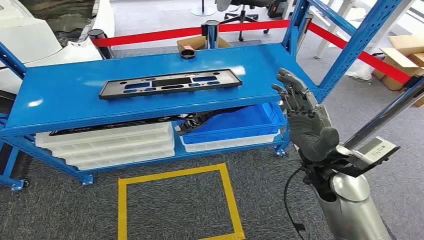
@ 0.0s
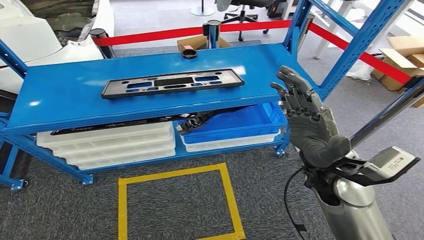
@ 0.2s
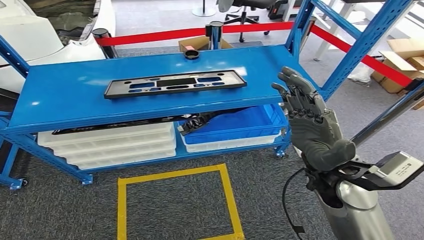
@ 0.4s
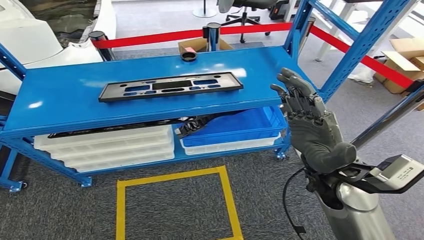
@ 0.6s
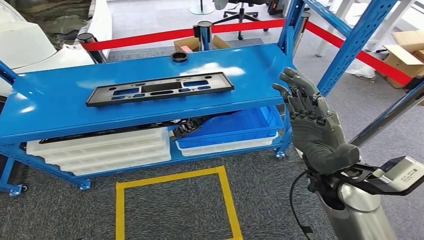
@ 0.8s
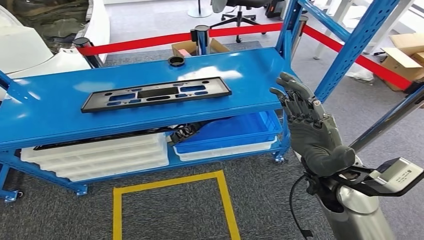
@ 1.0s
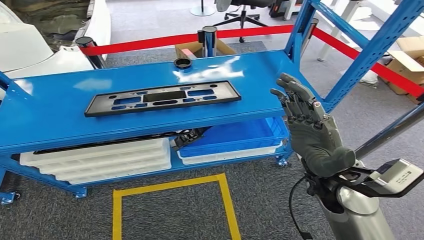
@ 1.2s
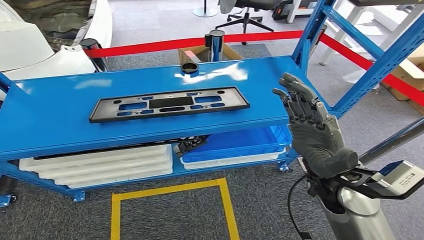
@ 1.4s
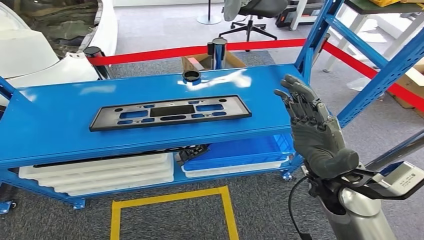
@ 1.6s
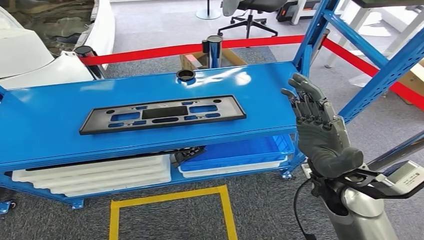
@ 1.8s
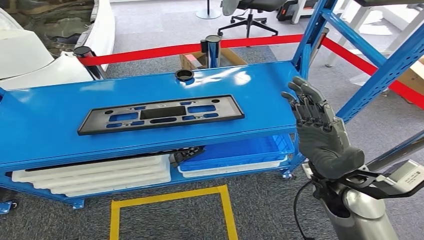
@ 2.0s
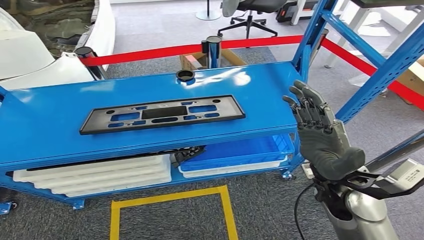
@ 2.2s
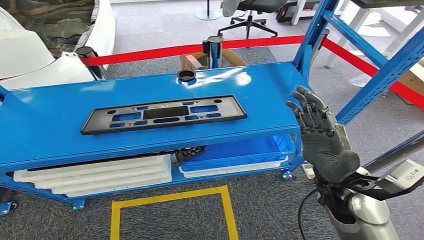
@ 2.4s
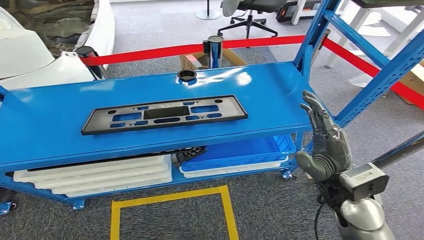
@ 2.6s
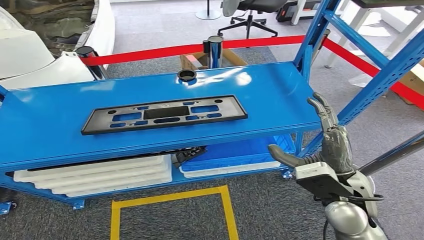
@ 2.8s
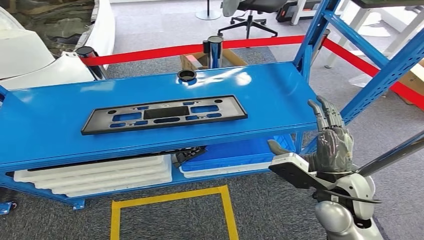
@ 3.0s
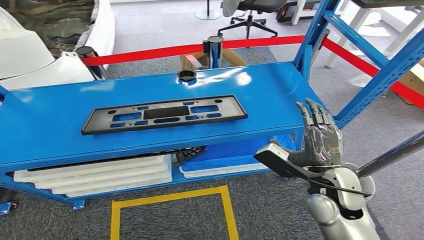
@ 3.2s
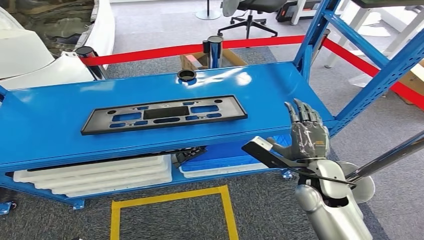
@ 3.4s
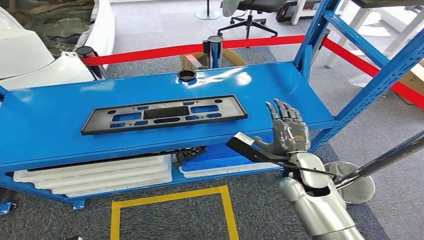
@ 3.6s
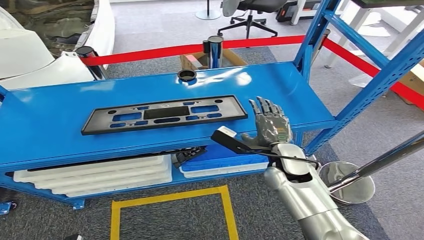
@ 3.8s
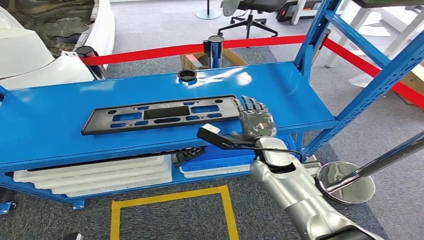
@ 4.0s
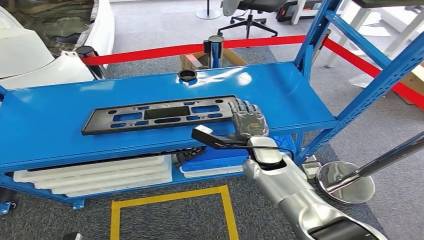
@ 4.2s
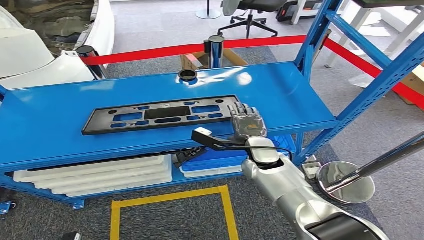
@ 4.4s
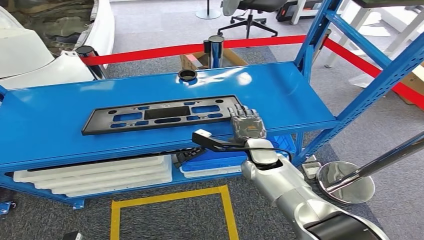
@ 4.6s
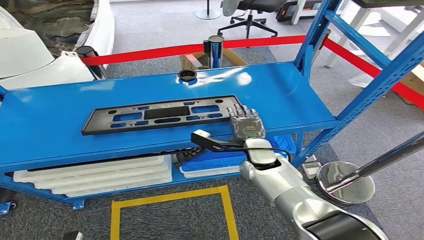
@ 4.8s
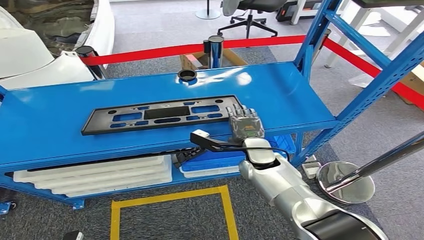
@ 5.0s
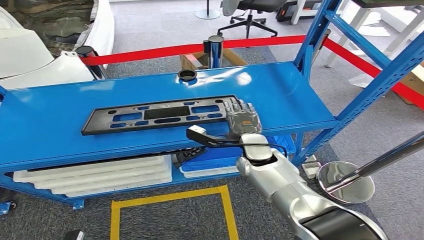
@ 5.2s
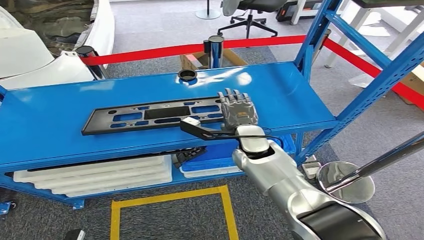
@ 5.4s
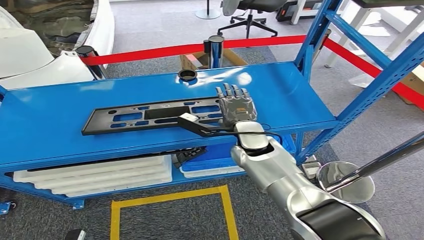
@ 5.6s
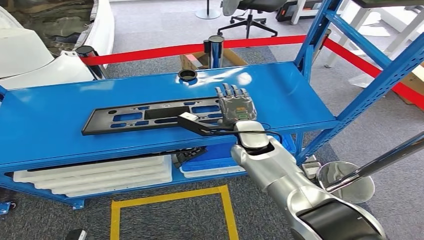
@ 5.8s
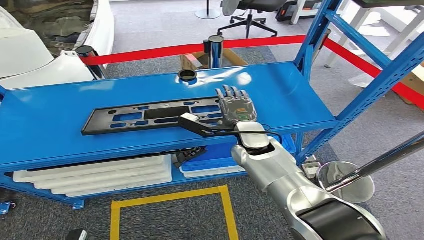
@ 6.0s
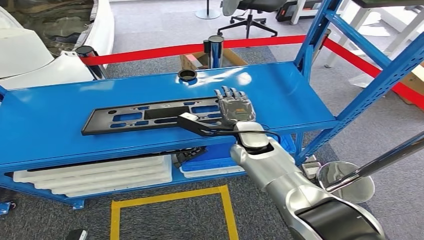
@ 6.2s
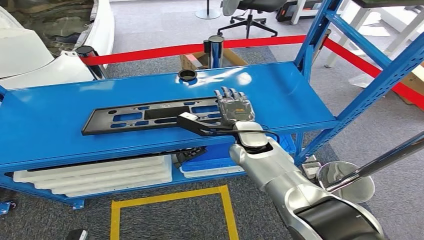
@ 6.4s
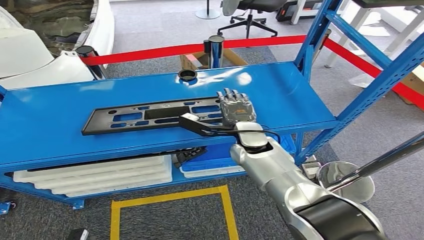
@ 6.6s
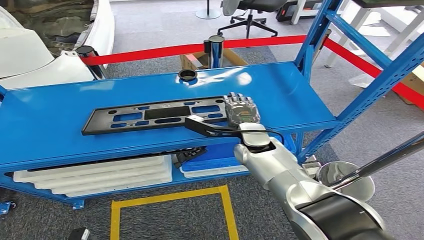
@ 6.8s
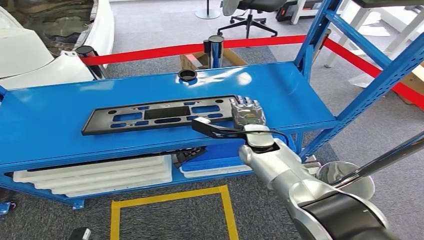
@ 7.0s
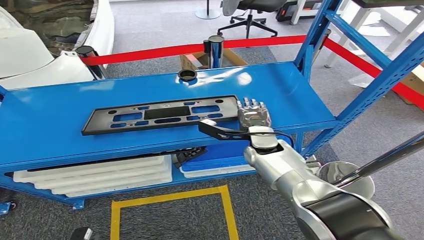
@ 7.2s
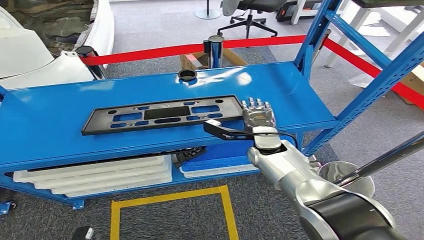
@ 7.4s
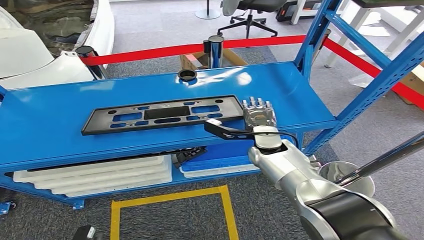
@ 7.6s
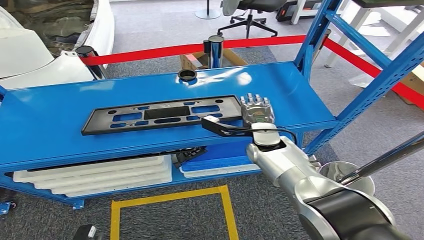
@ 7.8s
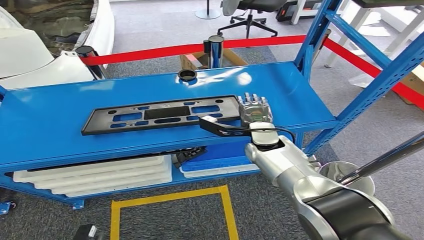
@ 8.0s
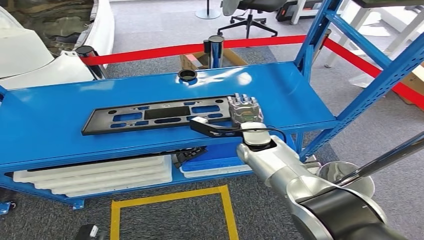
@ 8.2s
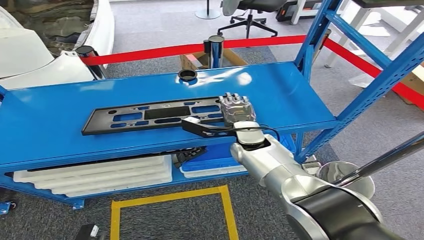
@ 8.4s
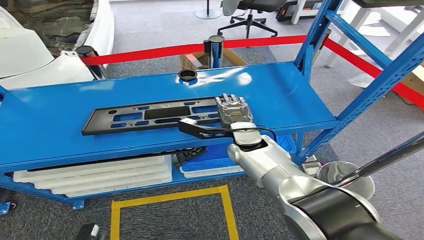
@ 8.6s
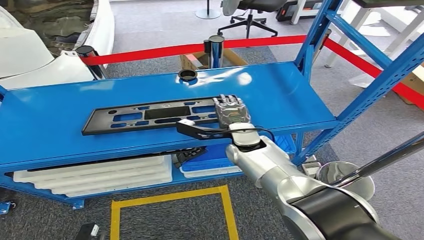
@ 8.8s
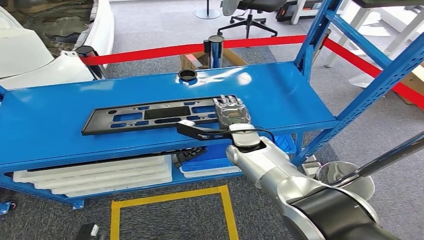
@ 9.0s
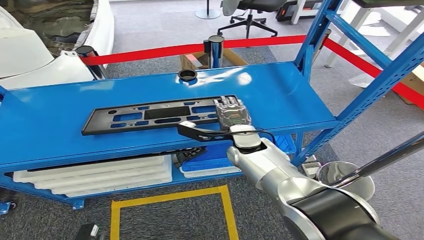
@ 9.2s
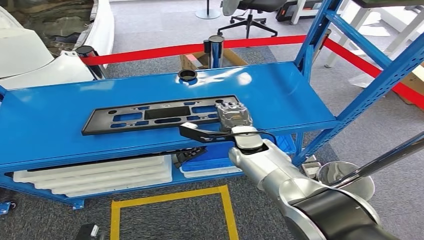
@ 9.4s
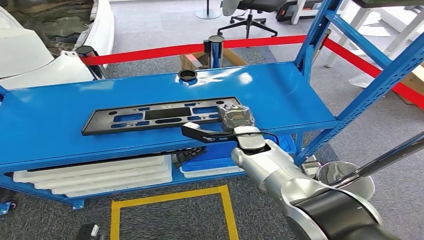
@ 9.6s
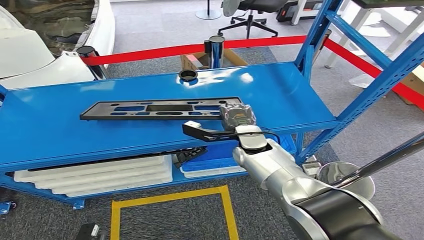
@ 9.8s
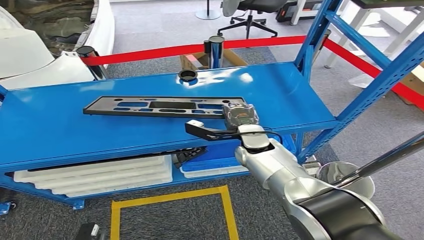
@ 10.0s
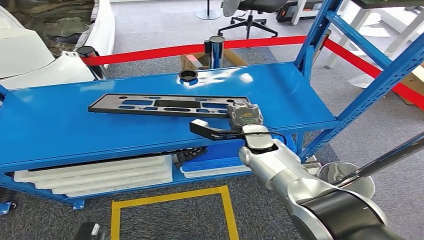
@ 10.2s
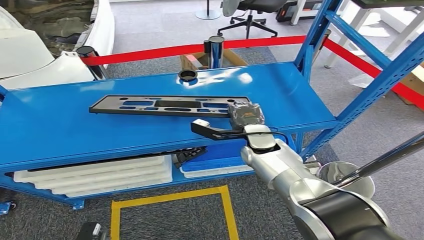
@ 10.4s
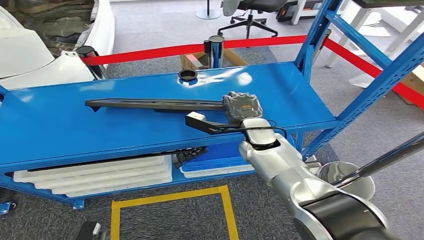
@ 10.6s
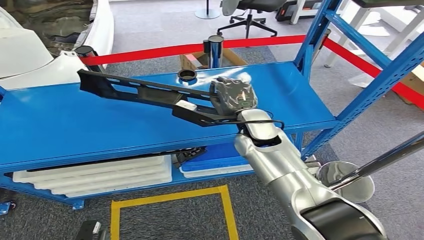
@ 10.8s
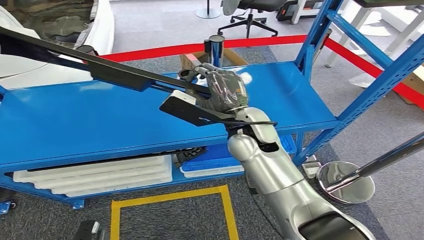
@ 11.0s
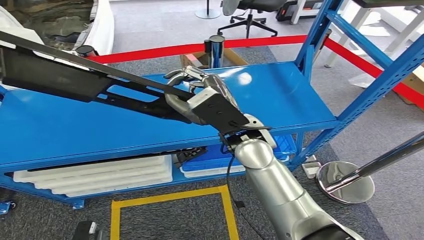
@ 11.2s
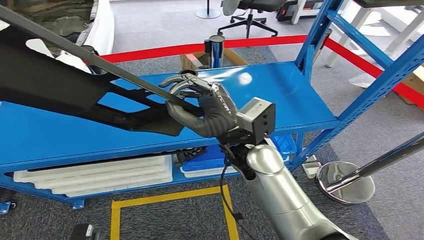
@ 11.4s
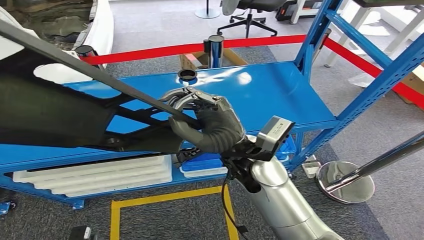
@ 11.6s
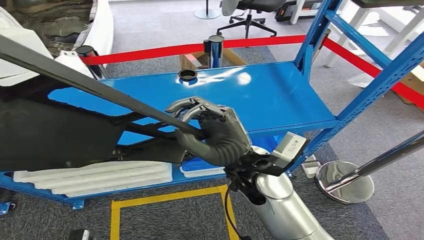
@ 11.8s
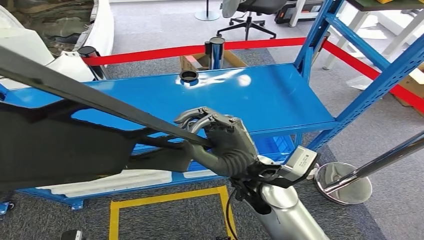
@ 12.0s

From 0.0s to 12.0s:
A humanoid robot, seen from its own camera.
Step, from 0.0s to 11.6s: Pick up the small component from the shelf.
From 3.0s to 4.4s: The right hand travels forward, to the left and downward by approximately 20 cm.
From 4.4s to 6.0s: The right hand moves about 5 cm.
From 6.0s to 7.6s: The right hand moves approximately 5 cm.
From 7.6s to 9.0s: The right hand heads to the left, covering roughly 5 cm.
From 9.0s to 10.4s: The hands move only a little.

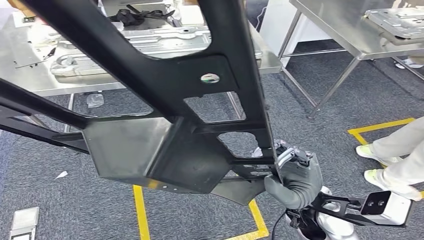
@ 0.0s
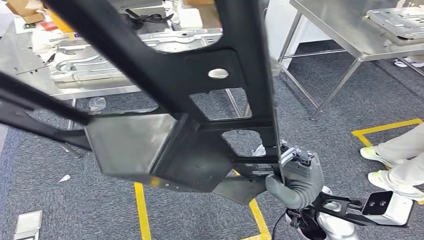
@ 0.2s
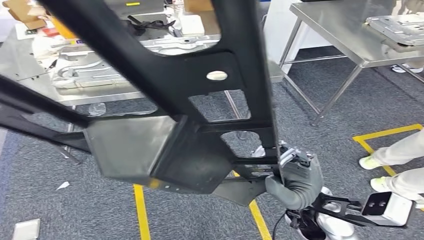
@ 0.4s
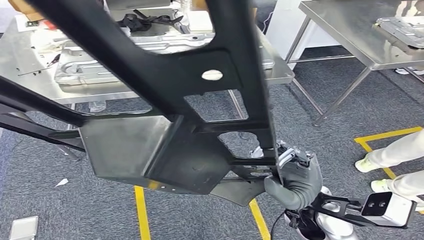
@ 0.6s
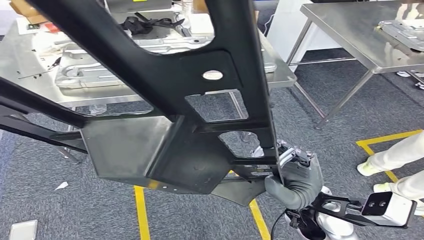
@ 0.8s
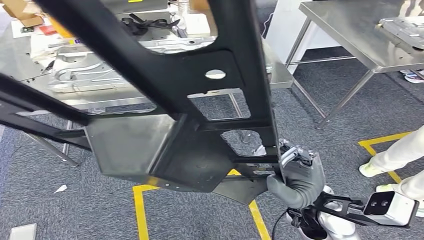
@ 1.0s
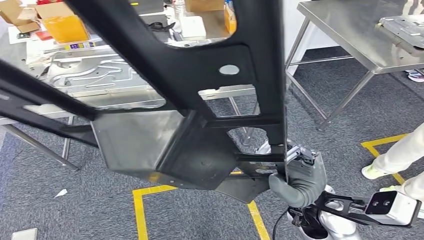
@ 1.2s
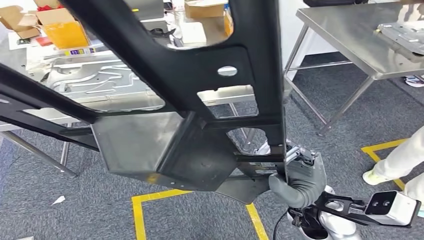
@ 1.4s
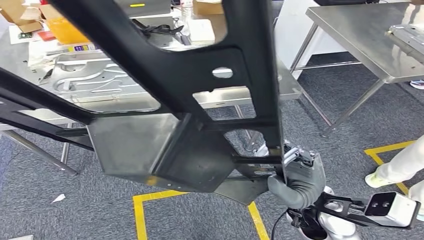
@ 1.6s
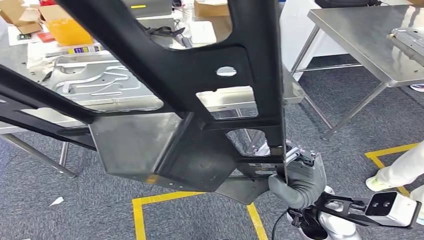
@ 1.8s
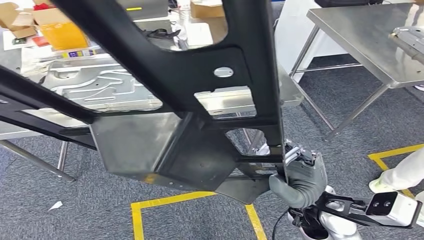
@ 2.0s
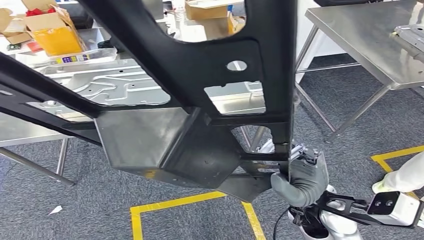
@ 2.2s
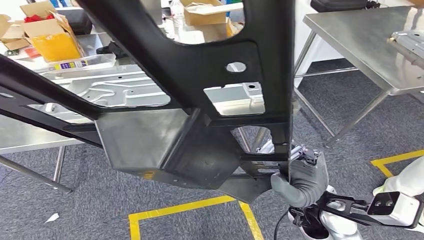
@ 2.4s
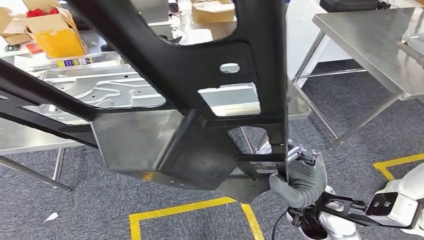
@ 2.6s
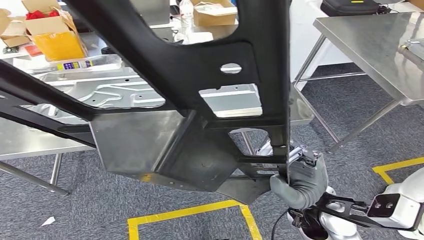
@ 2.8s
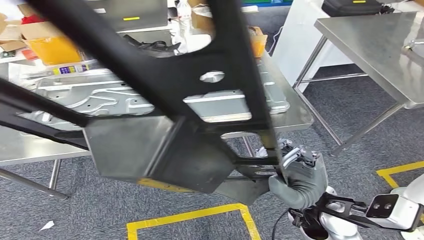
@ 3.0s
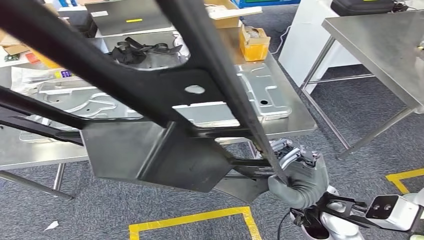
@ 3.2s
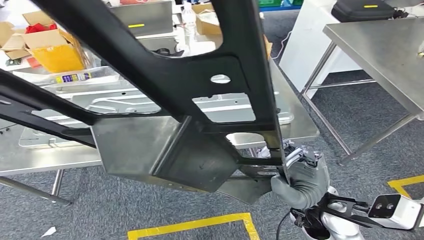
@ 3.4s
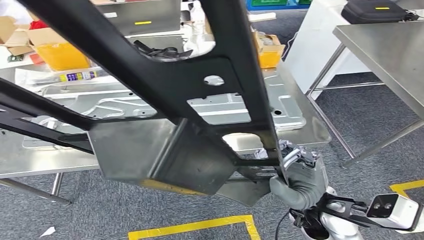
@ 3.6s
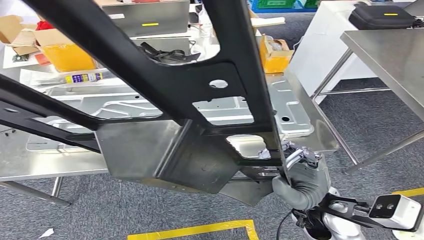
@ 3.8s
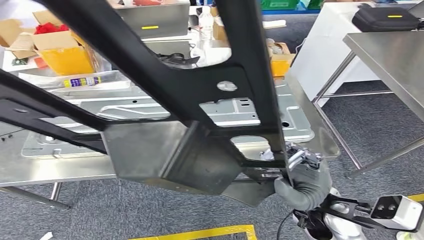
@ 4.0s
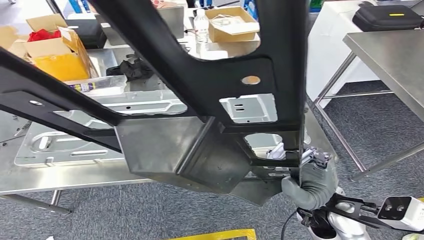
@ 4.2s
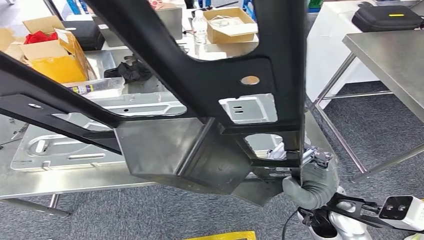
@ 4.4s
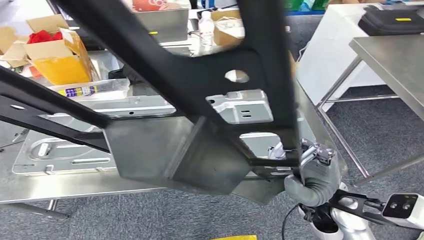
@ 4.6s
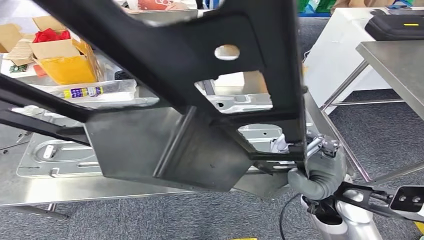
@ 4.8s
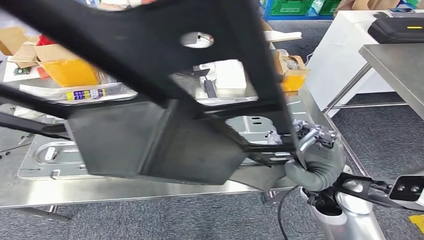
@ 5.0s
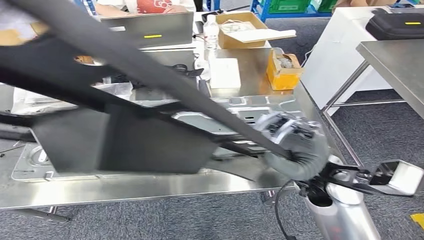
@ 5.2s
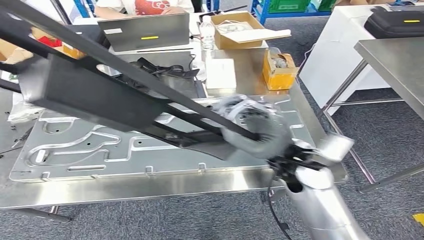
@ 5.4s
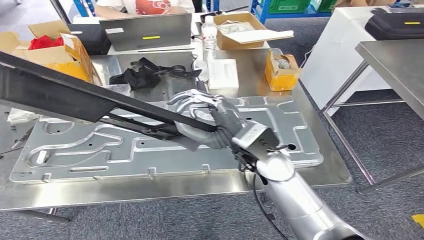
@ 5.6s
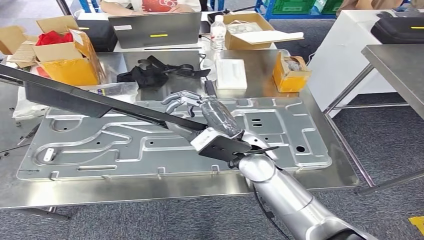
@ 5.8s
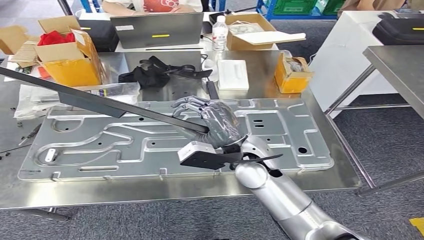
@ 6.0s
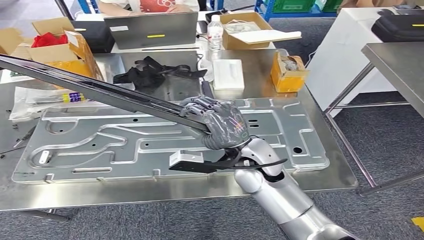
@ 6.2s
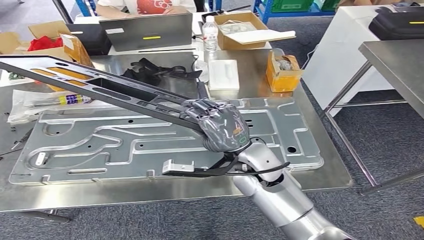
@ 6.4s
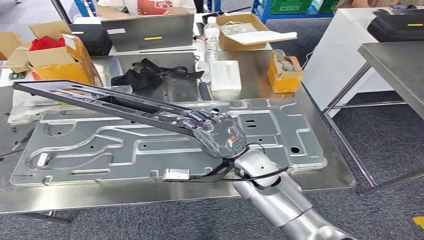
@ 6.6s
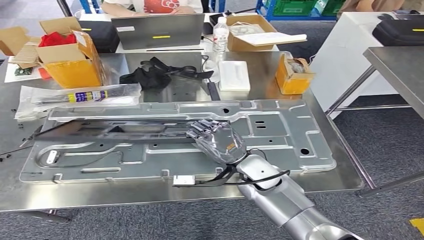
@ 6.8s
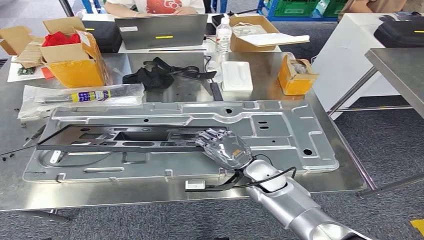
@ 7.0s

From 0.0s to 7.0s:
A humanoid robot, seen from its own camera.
Step, from 0.0s to 5.6s: Move the small component to the workbench.
